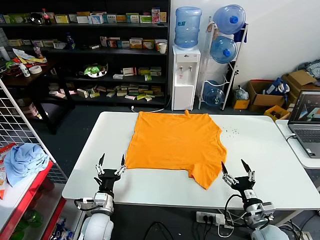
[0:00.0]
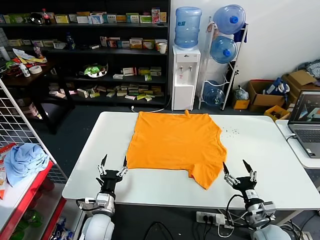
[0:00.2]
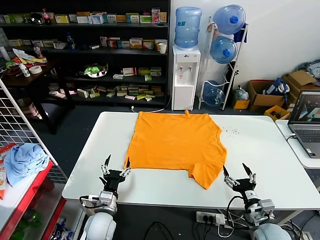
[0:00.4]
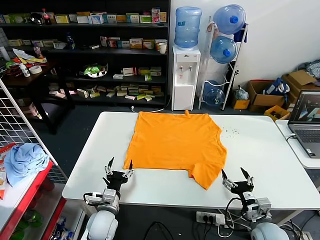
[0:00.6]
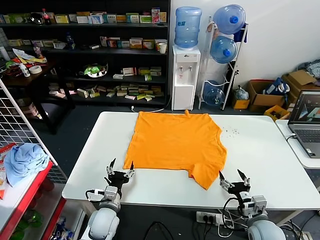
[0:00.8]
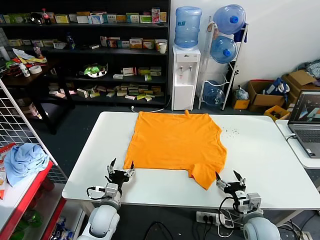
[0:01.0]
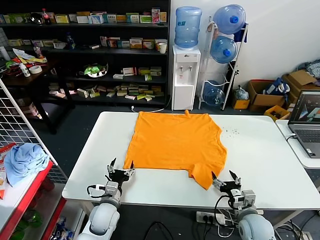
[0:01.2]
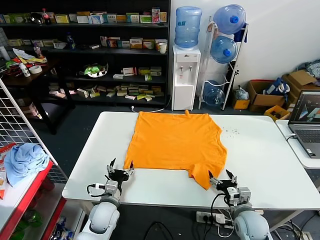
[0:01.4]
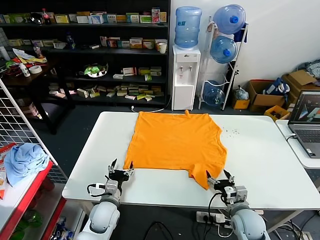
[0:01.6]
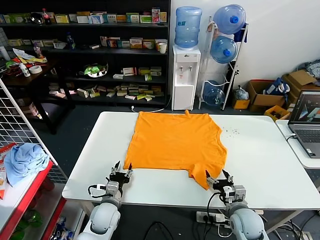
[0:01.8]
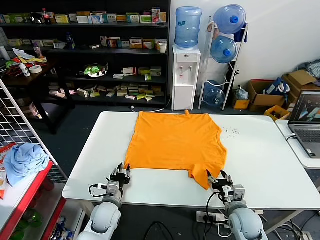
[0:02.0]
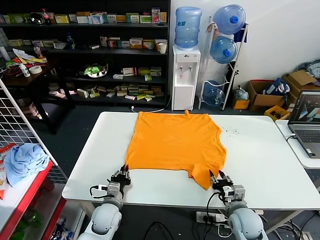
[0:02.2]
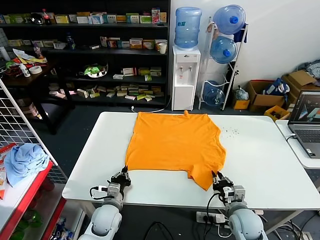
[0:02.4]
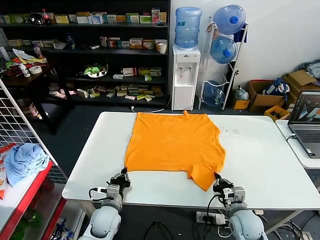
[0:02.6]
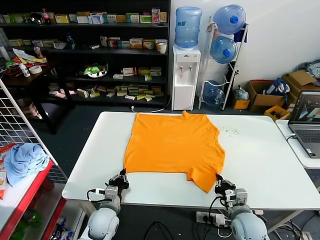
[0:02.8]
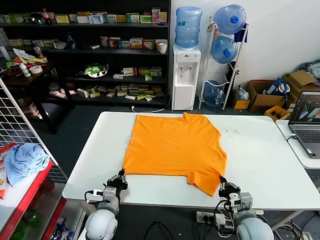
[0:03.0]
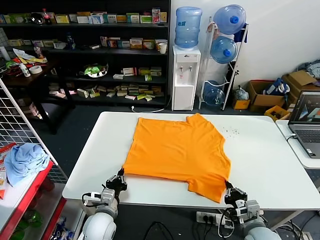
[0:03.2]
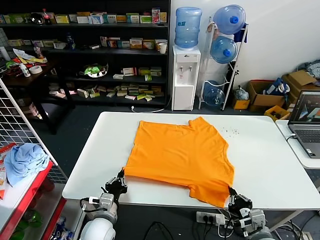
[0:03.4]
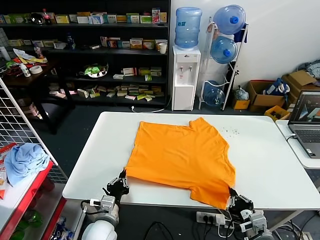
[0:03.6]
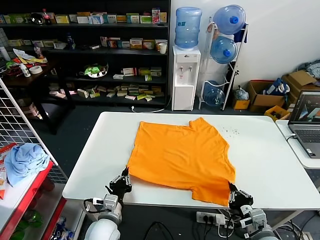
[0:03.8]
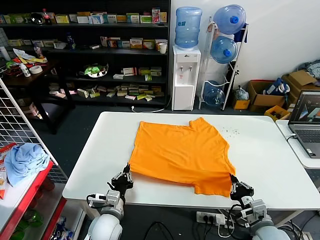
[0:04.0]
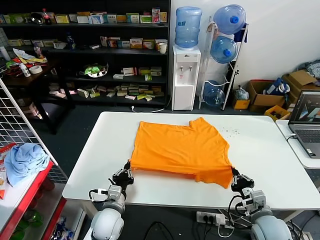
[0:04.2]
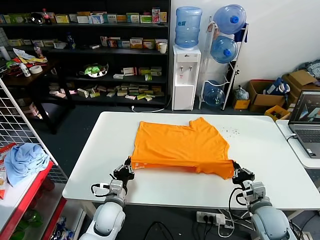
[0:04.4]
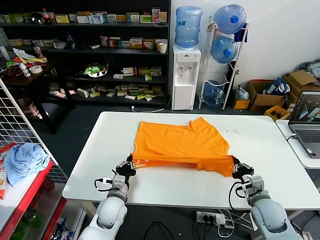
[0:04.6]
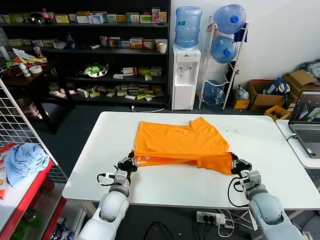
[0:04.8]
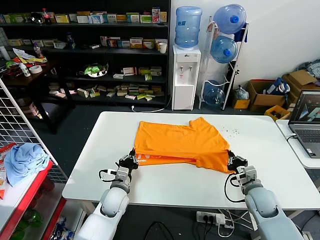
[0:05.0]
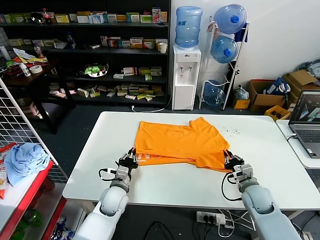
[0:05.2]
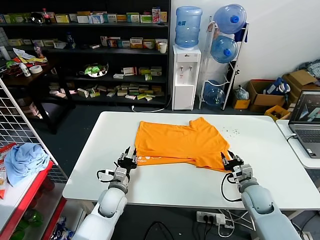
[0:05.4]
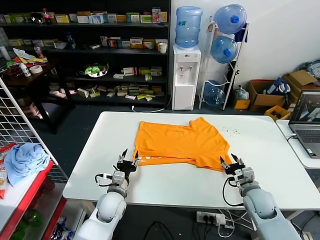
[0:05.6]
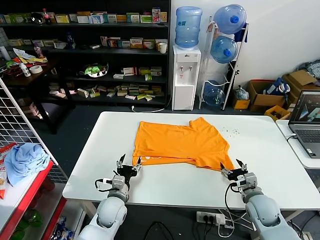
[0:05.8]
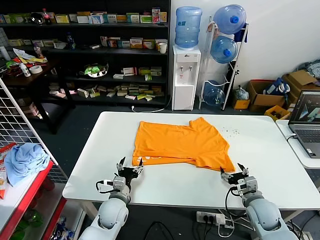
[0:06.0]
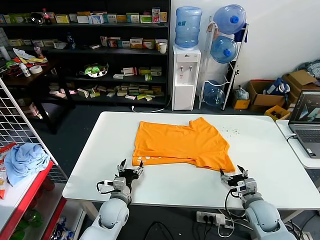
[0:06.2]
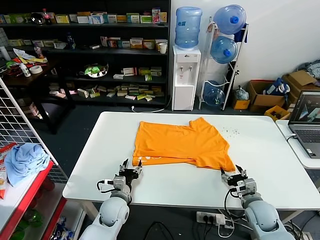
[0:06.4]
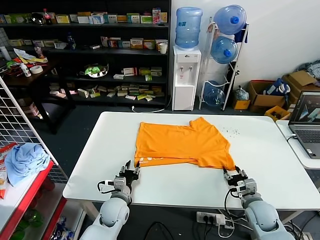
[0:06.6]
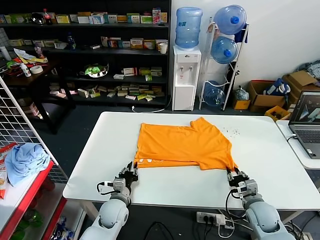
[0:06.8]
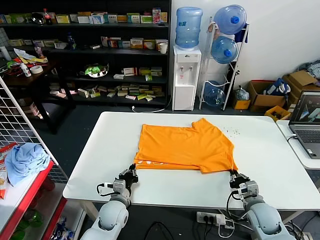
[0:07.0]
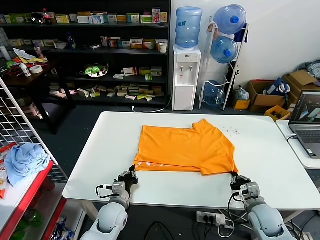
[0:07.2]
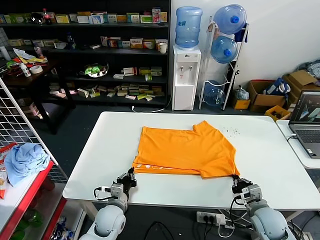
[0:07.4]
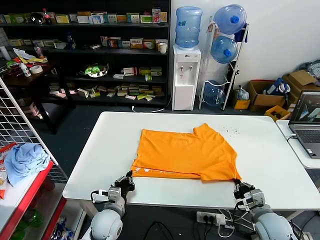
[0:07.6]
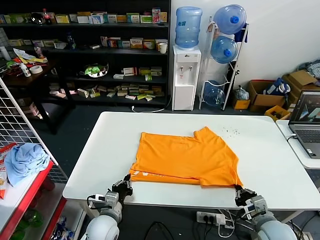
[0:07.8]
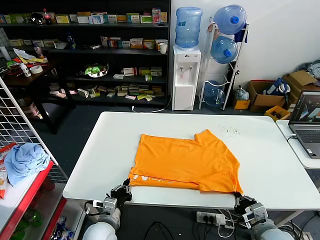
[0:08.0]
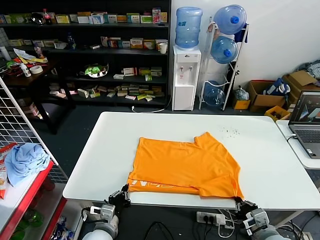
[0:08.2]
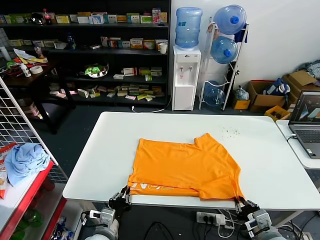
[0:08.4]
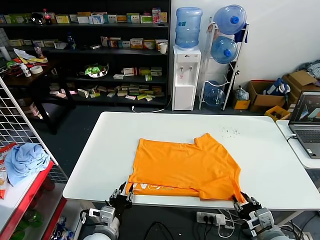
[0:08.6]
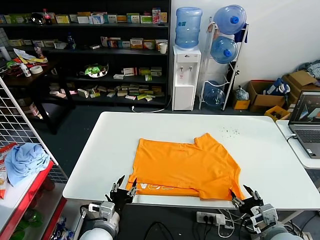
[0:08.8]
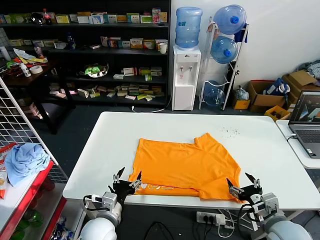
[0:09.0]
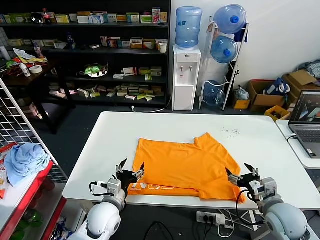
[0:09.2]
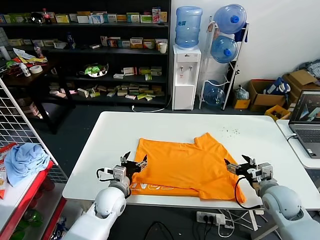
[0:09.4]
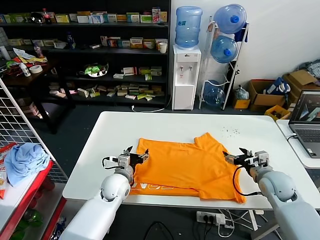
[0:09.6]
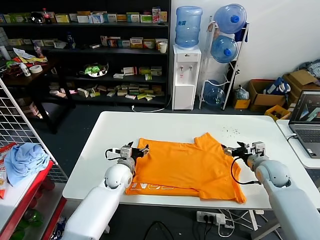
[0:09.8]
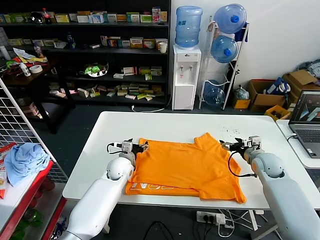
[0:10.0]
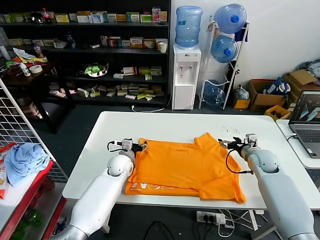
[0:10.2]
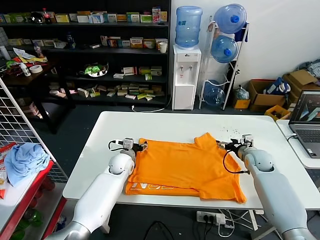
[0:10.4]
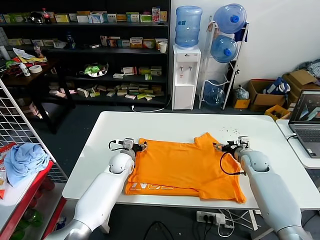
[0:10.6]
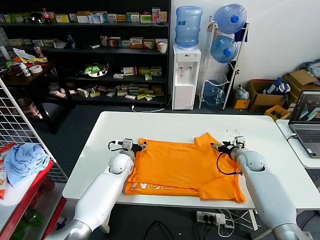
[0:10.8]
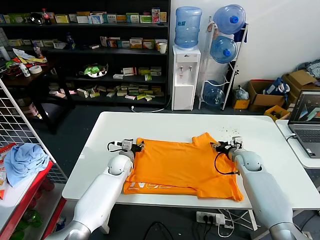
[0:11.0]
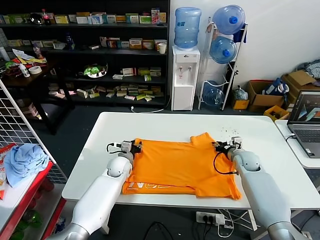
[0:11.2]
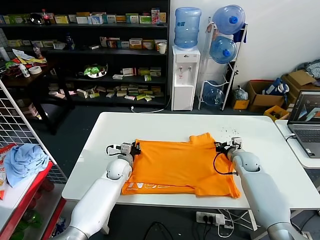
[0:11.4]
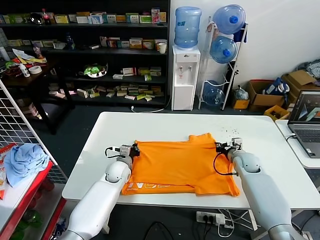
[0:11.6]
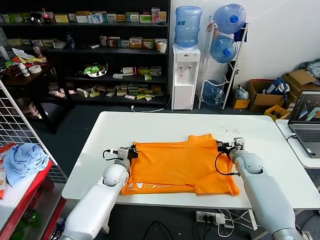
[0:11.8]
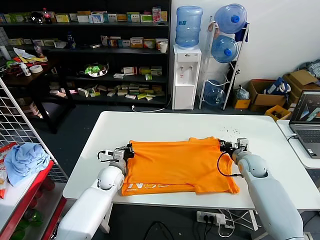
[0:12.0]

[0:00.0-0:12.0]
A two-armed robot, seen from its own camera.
Task of the whole recording: fold and organize the clothes.
Step, 0:00.0 to 0:03.0: use both grippers simultaneously to clamp the lower edge of the clothing fabric.
Step, 0:03.2 to 0:05.4: use both grippers to drag the lower edge of the fabric forward and fold it over the upper edge.
Step, 0:05.6 to 0:08.8: Drag the clothes downward with both gripper.
Step, 0:09.0 to 0:11.6: use both grippers simultaneously to clamp the upper edge of the clothing fabric.
0:01.6 to 0:03.0: The left gripper closes; the right gripper ends up some 5 cm from where it was, and closes.
0:03.0 to 0:04.4: The right gripper heads forward, covering some 5 cm.
0:04.4 to 0:06.0: The left gripper opens. The right gripper opens its fingers.
0:06.0 to 0:07.6: The right gripper moves backward, some 5 cm, and closes, while the left gripper closes its fingers.
0:07.6 to 0:09.0: The left gripper moves upward and backward, about 10 cm, and opens, while the right gripper heads upward, covering approximately 5 cm, and opens.
0:09.0 to 0:10.4: Both grippers move forward, about 25 cm.
0:10.4 to 0:12.0: The left gripper moves roughly 5 cm, and closes its fingers; the right gripper closes.

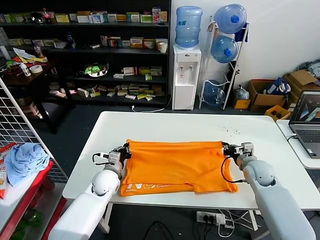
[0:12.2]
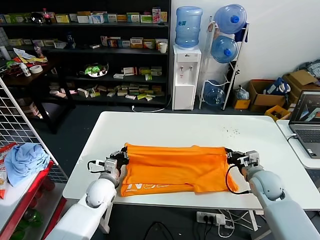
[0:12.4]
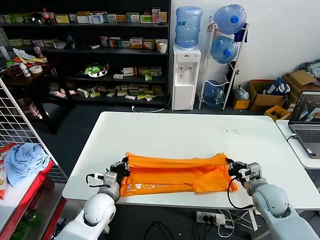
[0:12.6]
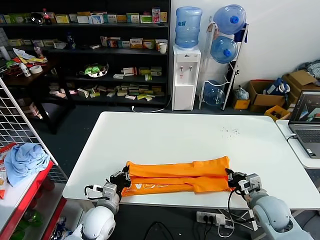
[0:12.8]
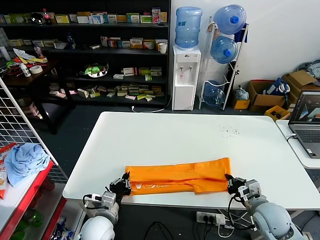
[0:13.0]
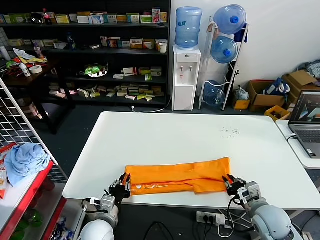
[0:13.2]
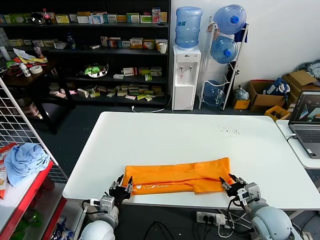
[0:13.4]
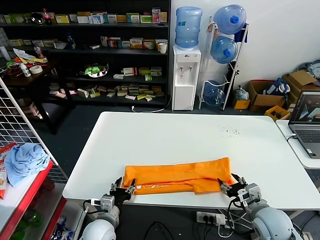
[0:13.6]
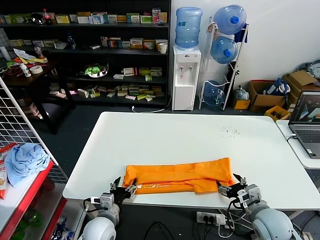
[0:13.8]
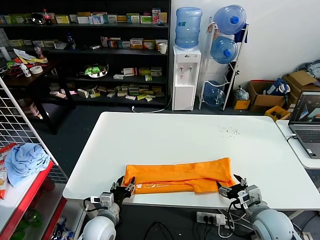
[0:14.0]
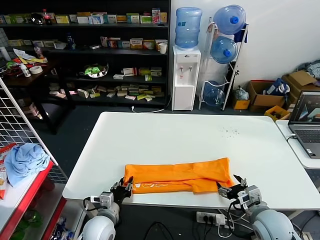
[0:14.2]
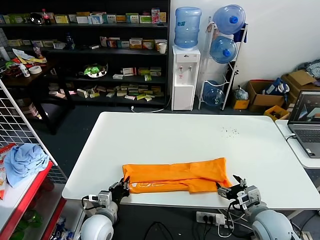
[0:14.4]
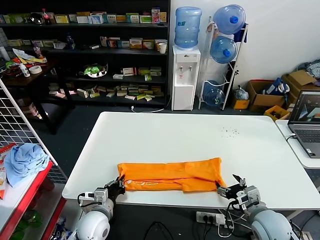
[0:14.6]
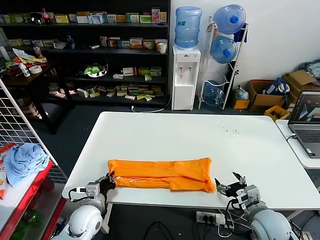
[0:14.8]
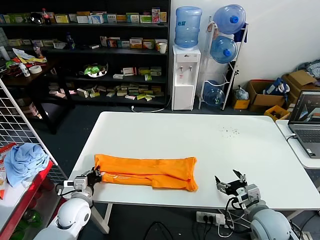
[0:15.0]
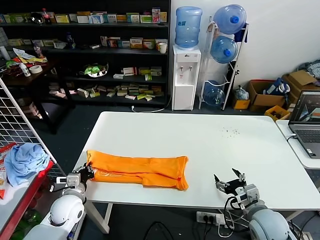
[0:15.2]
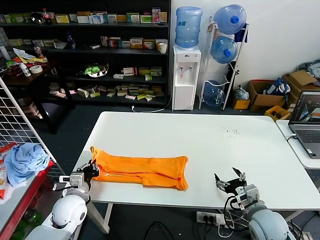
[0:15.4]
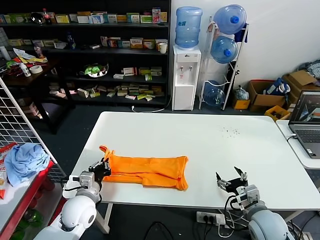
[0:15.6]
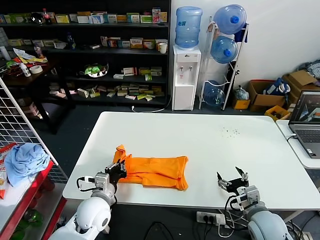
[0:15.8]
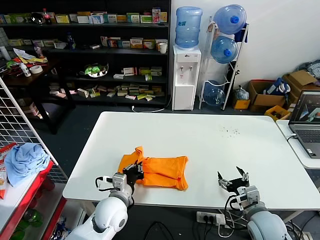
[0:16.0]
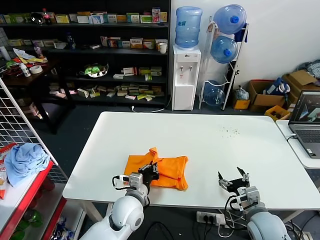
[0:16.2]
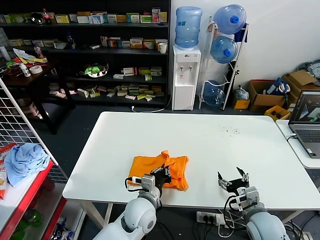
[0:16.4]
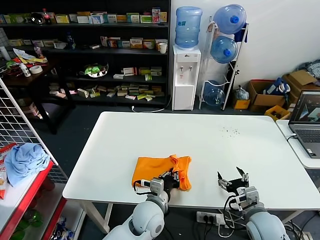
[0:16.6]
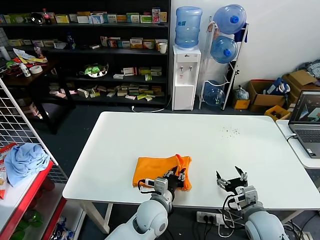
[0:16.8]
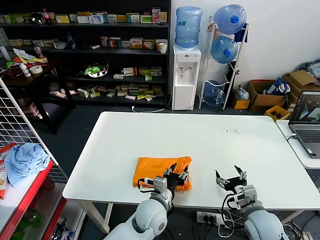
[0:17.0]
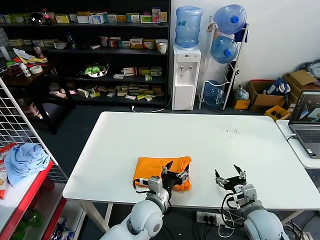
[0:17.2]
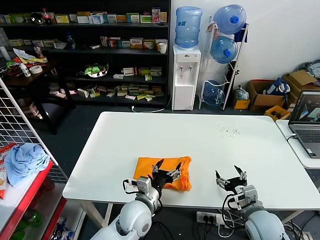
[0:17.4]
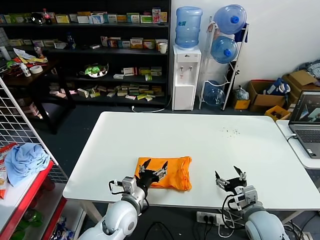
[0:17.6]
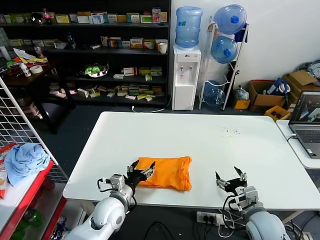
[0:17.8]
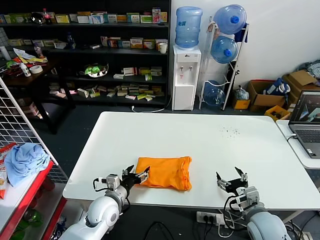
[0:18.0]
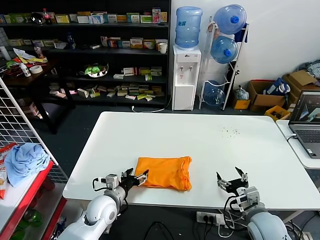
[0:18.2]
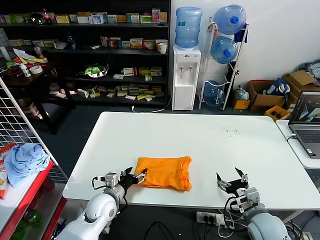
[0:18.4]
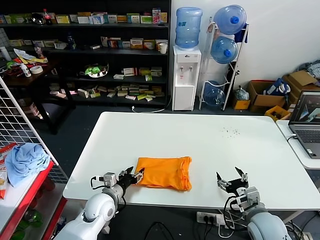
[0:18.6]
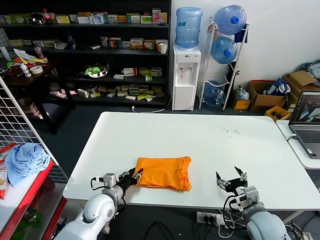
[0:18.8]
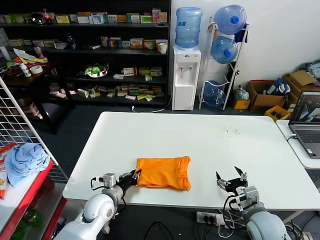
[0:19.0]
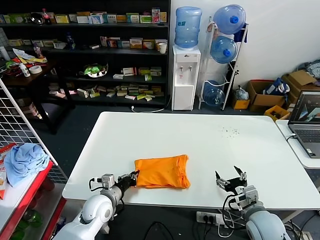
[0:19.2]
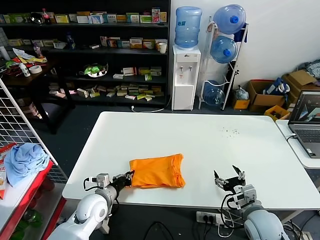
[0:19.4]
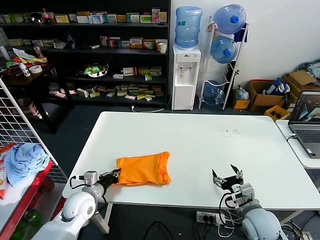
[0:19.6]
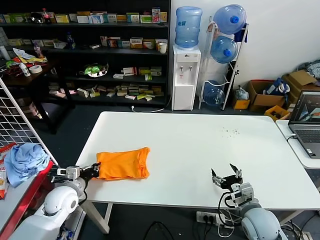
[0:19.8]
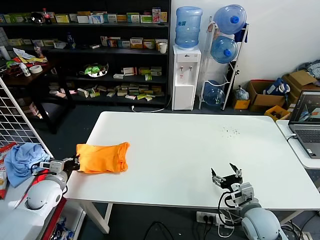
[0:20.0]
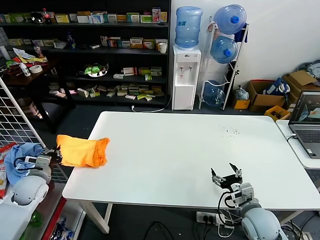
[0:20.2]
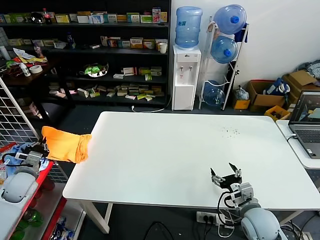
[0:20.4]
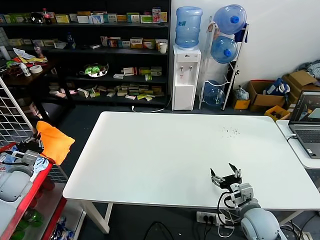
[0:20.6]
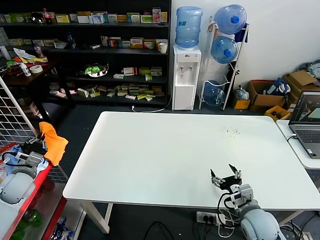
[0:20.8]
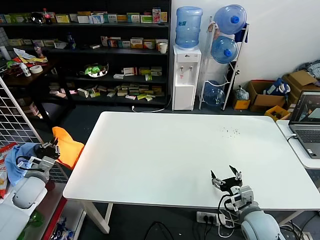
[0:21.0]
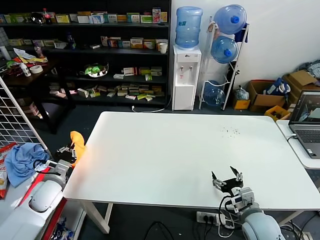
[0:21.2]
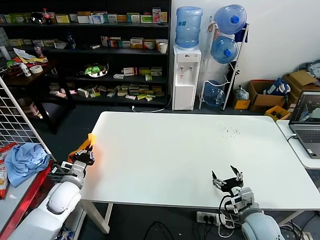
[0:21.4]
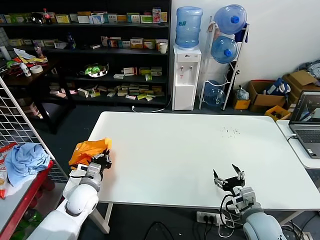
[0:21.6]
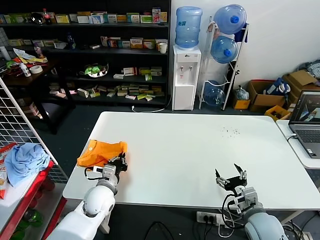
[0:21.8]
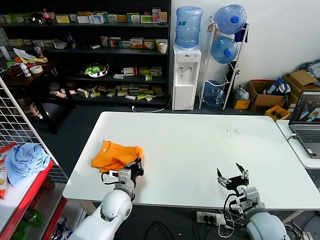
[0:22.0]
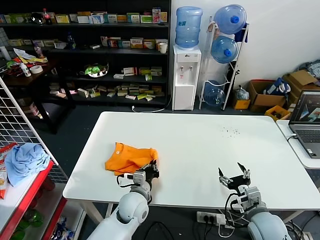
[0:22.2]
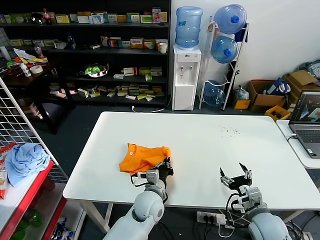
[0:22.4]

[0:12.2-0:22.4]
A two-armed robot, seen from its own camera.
Task of the whole recording: fold and organize the clothes.
Step, 0:12.2 to 0:13.4: use both grippers to drag the upper edge of the fabric backward and fold it over the lower edge.
Step, 0:13.8 to 0:14.6: use the left gripper to clamp the left edge of the fabric.
Step, 0:14.8 to 0:17.2: use the left gripper to drag the left edge of the fabric to the left and folds it over the right edge.
0:12.2 to 0:13.6: The grippers both shift backward by approximately 15 cm. The left gripper opens its fingers. Meanwhile the right gripper opens.
0:13.6 to 0:15.2: The left gripper is displaced to the left and forward by approximately 15 cm, and closes its fingers.
0:15.2 to 0:16.6: The left gripper shifts approximately 25 cm to the right.
0:16.6 to 0:18.0: The left gripper travels to the left by roughly 15 cm, and opens up.
0:18.0 to 0:19.4: The left gripper closes.
0:19.4 to 0:21.0: The left gripper travels to the left by some 25 cm.
0:21.0 to 0:22.4: The left gripper travels to the right by about 40 cm.
